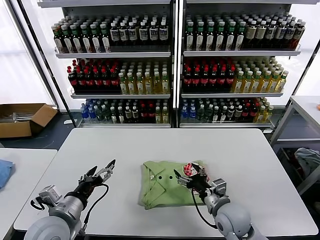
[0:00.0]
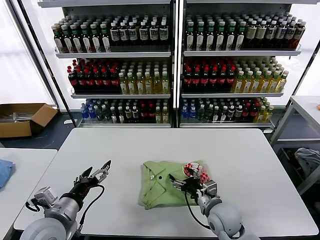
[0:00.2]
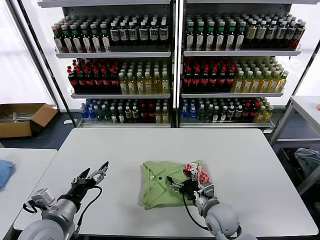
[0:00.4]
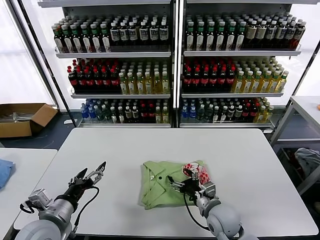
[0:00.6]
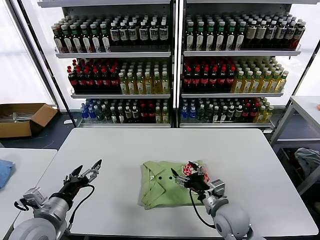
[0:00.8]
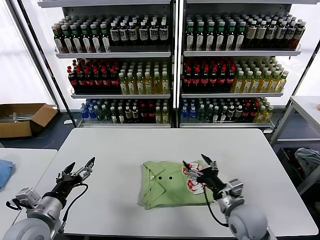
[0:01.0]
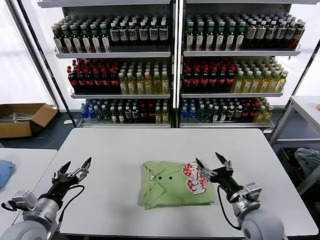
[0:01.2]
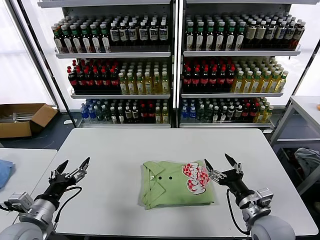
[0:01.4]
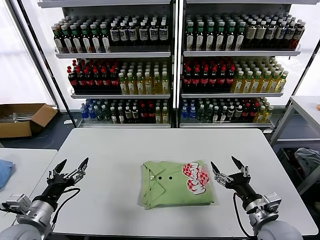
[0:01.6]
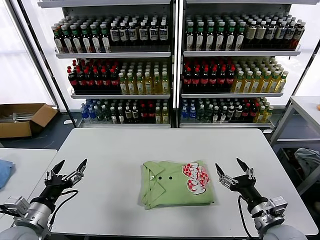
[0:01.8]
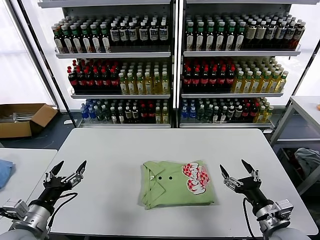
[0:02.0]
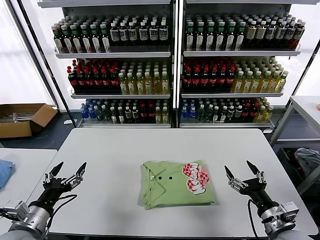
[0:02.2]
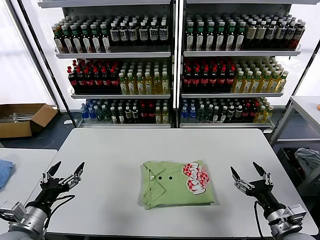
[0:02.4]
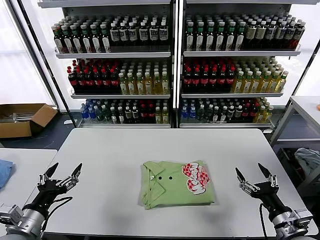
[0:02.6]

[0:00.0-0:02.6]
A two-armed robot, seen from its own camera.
Task of the whole recording: fold and organize the clothes.
0:00.0 to 0:01.2: The right gripper changes place by roughly 5 cm; the left gripper moves to the left, approximately 5 cm.
0:01.2 to 0:02.6: The right gripper heads to the right and backward, covering about 10 cm.

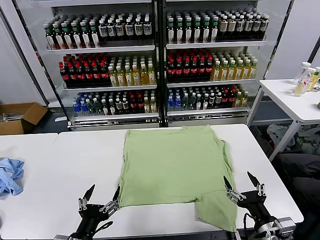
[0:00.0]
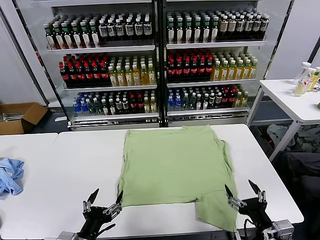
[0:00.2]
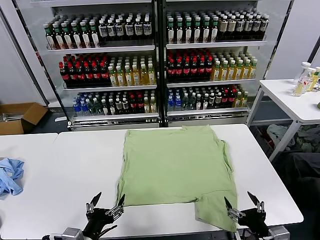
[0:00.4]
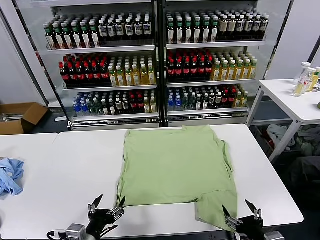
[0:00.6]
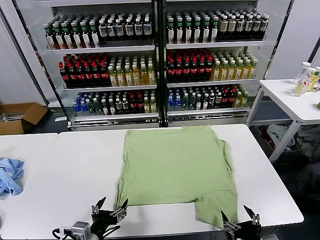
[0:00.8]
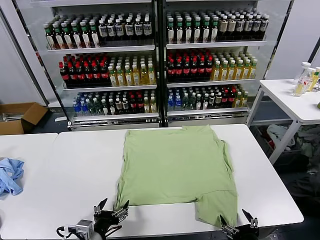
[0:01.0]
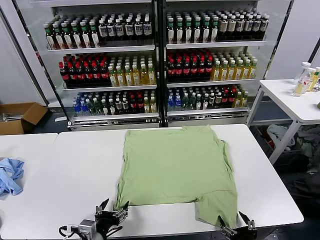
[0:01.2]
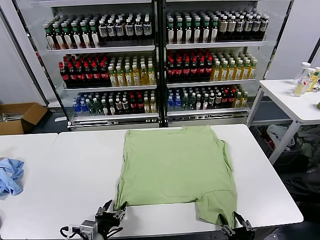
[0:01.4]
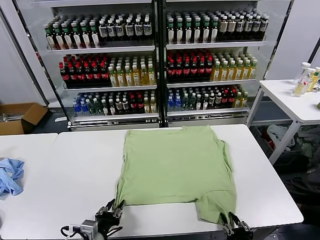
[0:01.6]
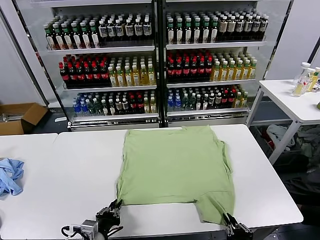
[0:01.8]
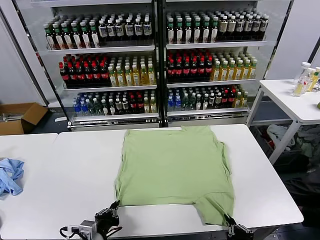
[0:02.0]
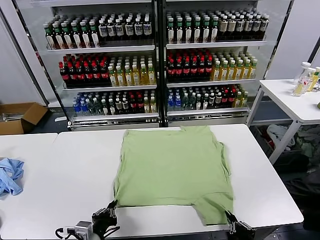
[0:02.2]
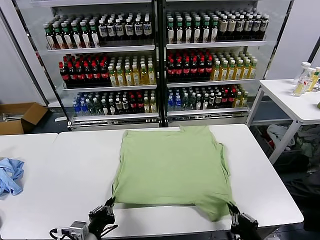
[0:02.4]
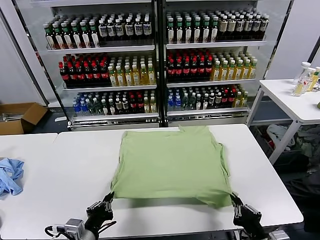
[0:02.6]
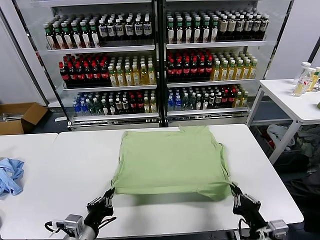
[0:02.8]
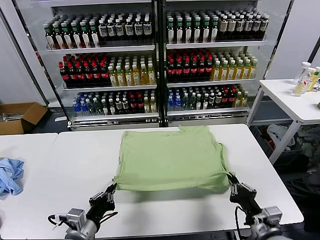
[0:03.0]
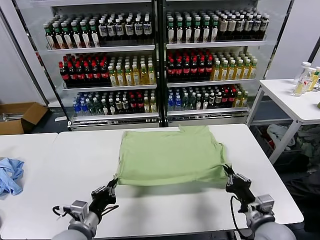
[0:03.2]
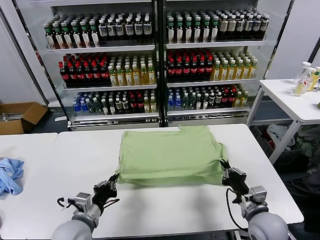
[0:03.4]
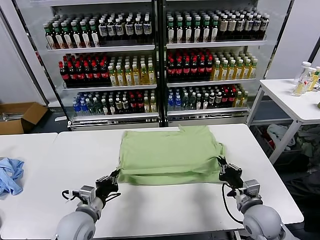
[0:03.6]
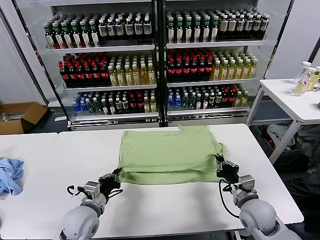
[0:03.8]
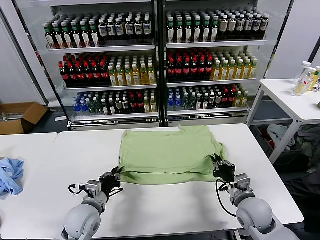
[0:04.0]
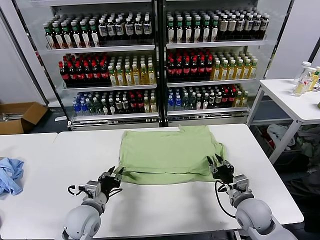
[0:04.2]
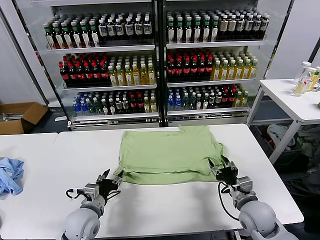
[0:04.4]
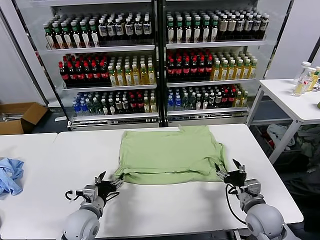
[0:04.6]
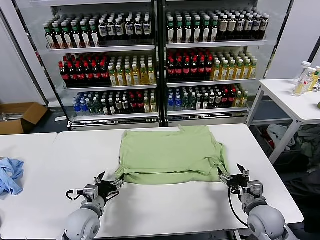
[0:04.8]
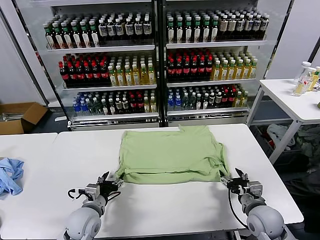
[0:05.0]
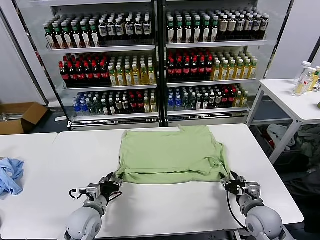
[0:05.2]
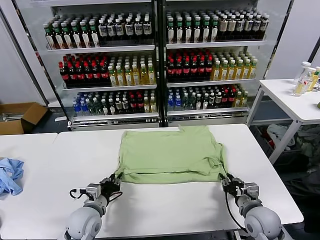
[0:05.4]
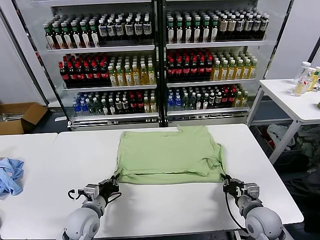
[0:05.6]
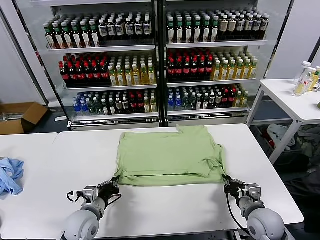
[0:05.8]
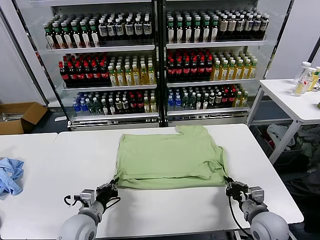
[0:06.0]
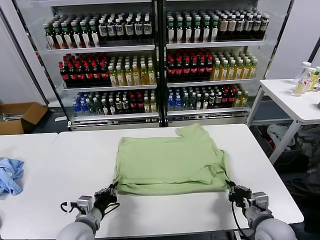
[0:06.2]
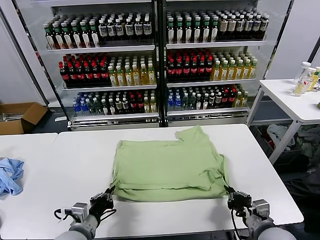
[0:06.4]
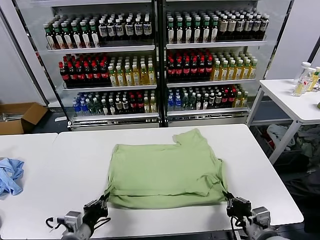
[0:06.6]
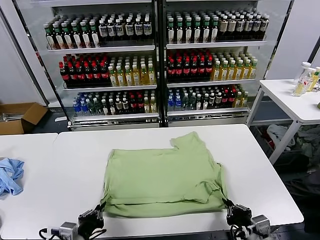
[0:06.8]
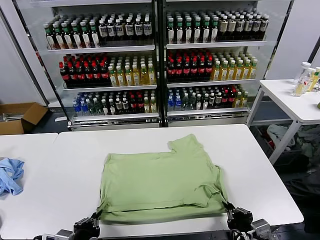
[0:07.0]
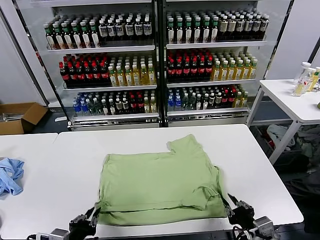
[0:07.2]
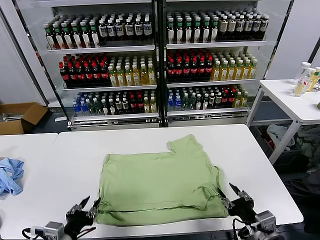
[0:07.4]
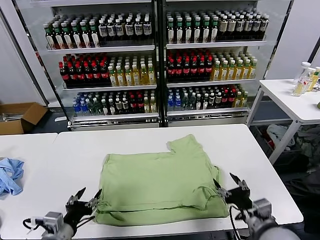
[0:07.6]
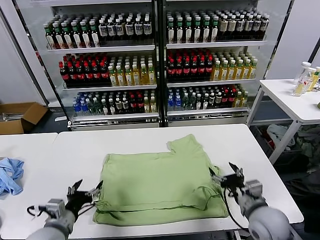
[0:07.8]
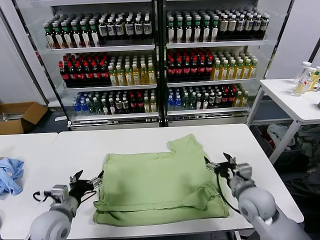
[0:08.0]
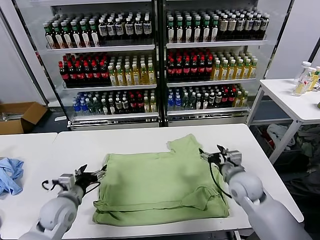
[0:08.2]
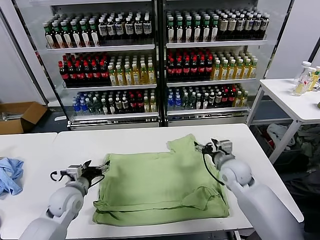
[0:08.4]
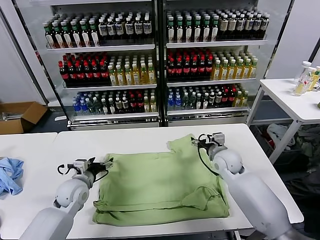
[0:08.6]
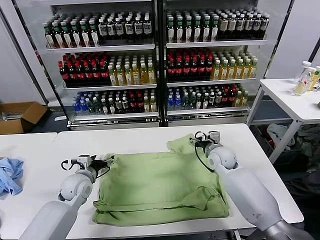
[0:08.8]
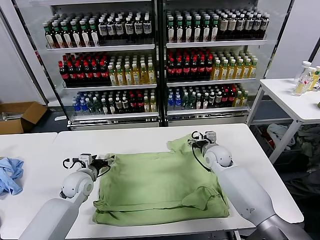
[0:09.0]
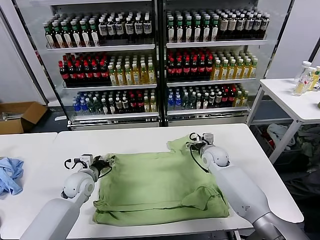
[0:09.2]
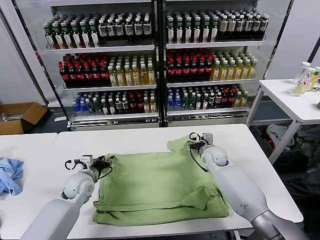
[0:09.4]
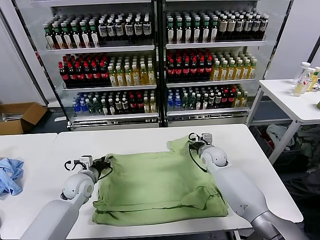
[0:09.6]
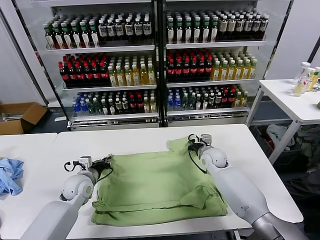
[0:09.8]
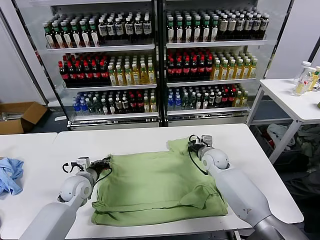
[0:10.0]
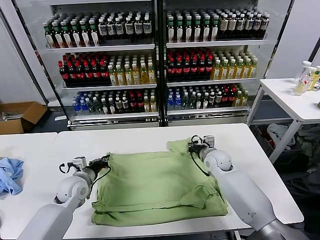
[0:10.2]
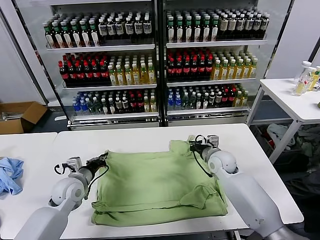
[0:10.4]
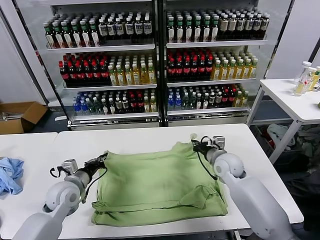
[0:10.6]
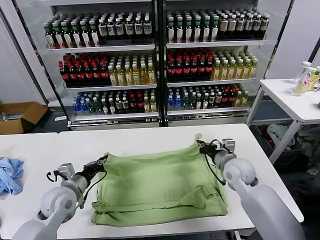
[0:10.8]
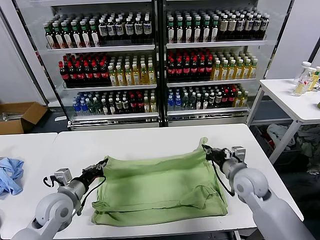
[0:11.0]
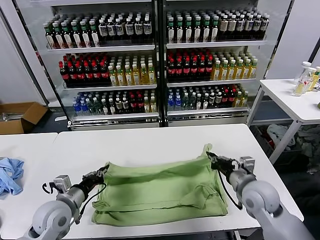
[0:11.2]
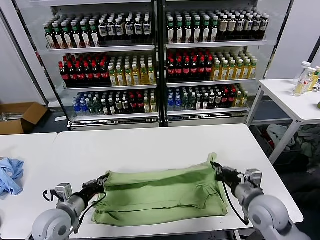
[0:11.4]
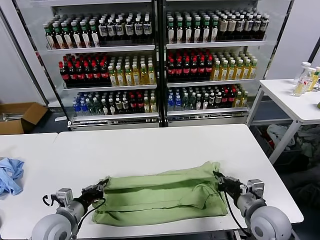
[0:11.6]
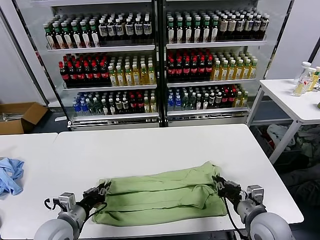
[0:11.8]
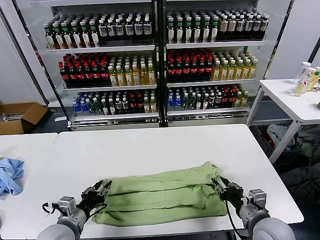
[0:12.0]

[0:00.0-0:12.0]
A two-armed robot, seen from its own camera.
Task of the whole recording: fold and organize the clothes.
Step, 0:00.0 to 0:02.2: use both grippers simultaneously to clamp the lower edge of the clothing fabric.
Step, 0:02.4 to 0:04.2: use both grippers to drag the lower edge of the fabric forward and fold it over the upper edge.
Step, 0:04.6 to 0:07.2: Drag the clothes downward with both gripper.
Step, 0:07.4 to 0:09.8: use both grippers simultaneously to clamp the upper edge of the clothing fabric.
Step, 0:10.2 to 0:11.8: use both grippers to drag the upper edge of the fabric backward and fold it over the lower edge.
0:01.6 to 0:03.0: The left gripper ends up approximately 5 cm from where it was, and closes. Meanwhile the right gripper shifts about 10 cm forward and upward.
0:03.0 to 0:04.4: The right gripper heads forward, covering approximately 10 cm, and opens; the left gripper shifts roughly 10 cm forward and downward, and opens up.
0:04.4 to 0:06.0: The right gripper closes its fingers, while the left gripper closes up.
0:06.0 to 0:07.6: The left gripper is displaced backward and upward by approximately 10 cm, and opens. The right gripper moves upward, some 5 cm, travels backward and back again, some 10 cm each way, and opens.
0:07.6 to 0:09.0: Both grippers move forward, some 25 cm.
0:09.0 to 0:10.4: The right gripper closes its fingers, while the left gripper closes up.
0:10.4 to 0:12.0: The right gripper shifts about 25 cm backward, and opens up. The left gripper moves backward, some 15 cm, and opens its fingers.

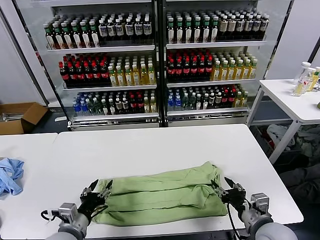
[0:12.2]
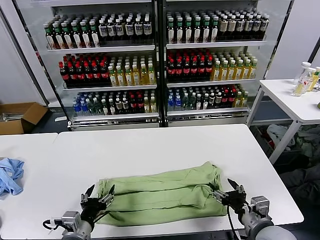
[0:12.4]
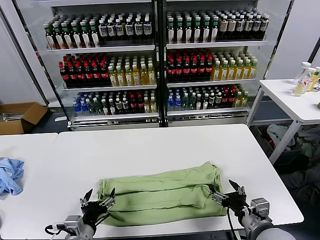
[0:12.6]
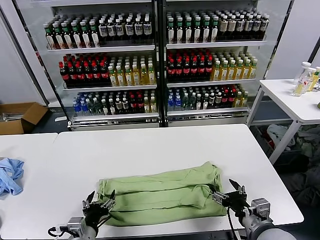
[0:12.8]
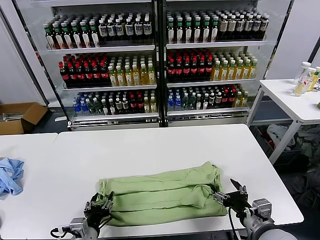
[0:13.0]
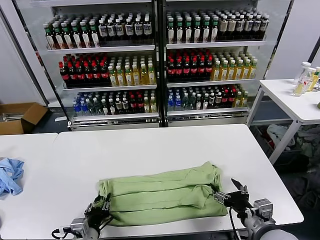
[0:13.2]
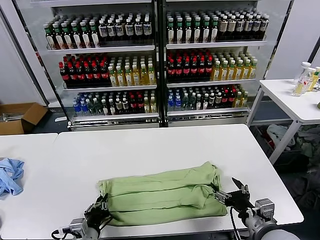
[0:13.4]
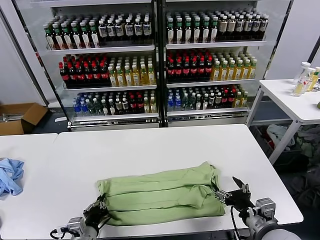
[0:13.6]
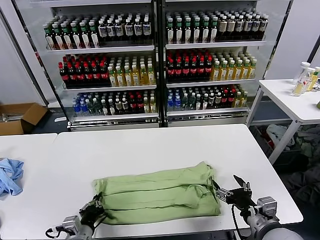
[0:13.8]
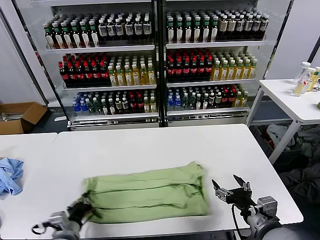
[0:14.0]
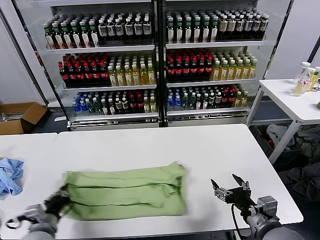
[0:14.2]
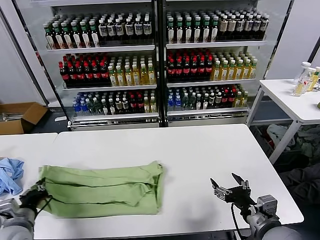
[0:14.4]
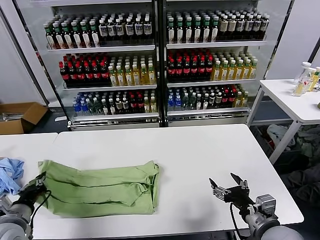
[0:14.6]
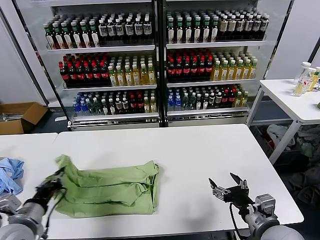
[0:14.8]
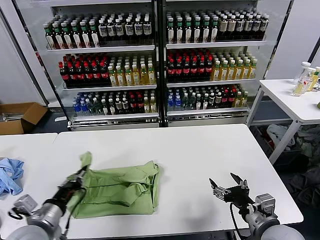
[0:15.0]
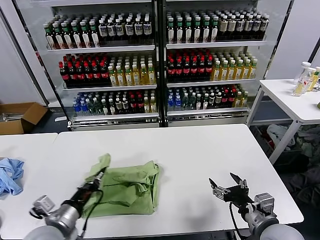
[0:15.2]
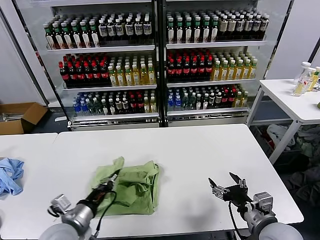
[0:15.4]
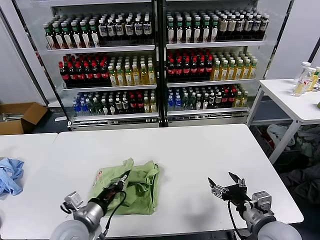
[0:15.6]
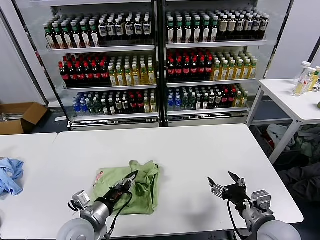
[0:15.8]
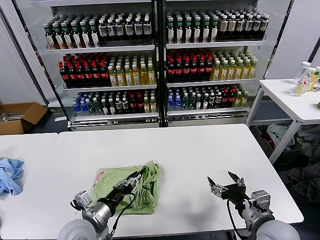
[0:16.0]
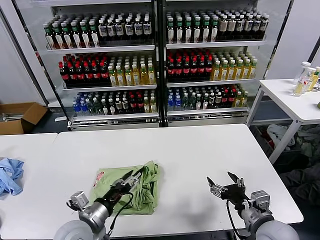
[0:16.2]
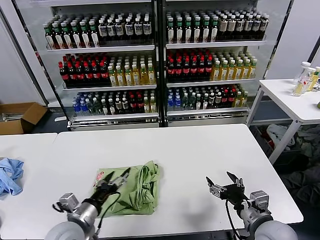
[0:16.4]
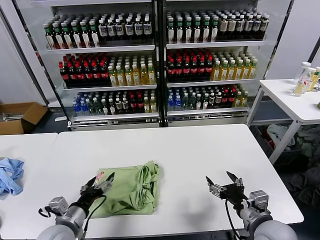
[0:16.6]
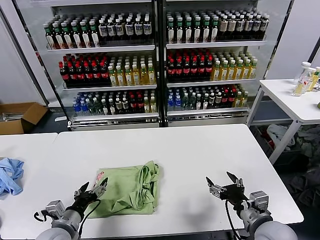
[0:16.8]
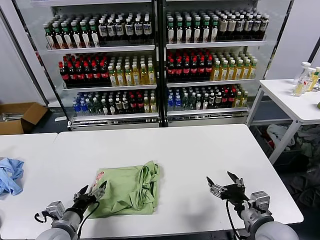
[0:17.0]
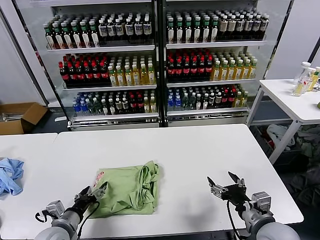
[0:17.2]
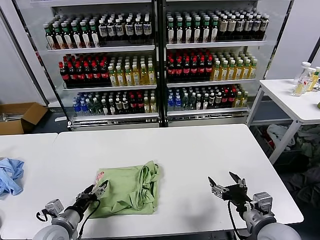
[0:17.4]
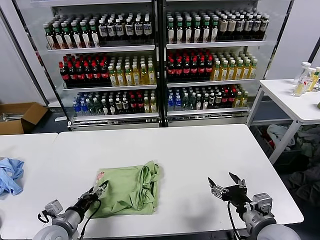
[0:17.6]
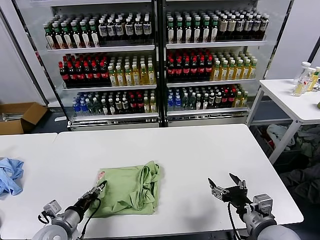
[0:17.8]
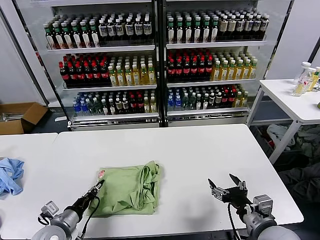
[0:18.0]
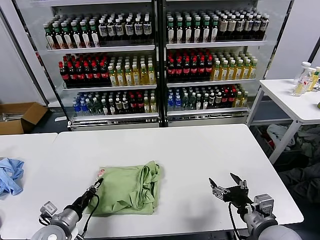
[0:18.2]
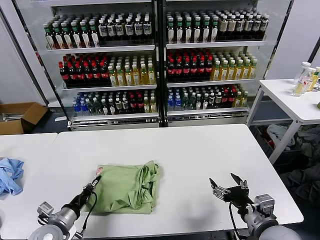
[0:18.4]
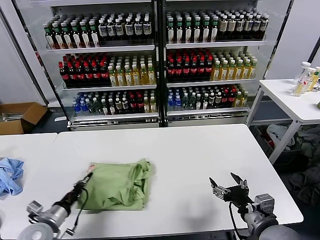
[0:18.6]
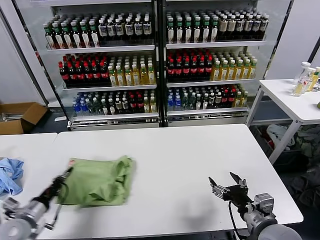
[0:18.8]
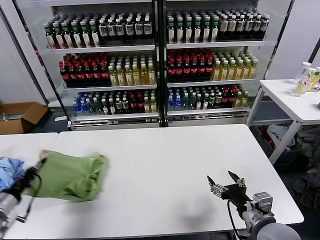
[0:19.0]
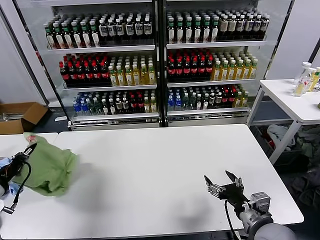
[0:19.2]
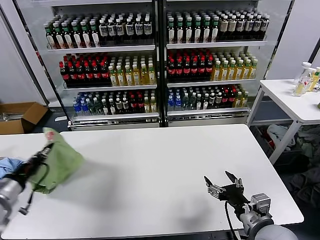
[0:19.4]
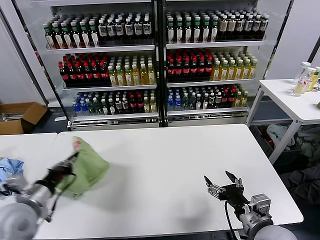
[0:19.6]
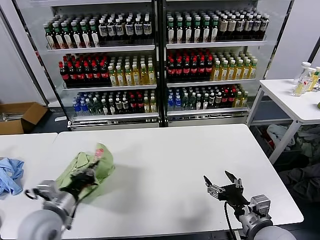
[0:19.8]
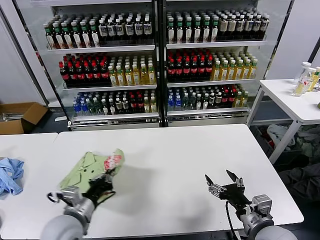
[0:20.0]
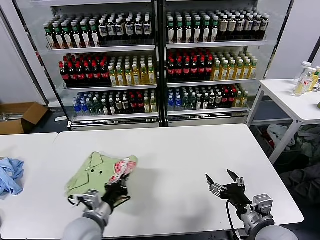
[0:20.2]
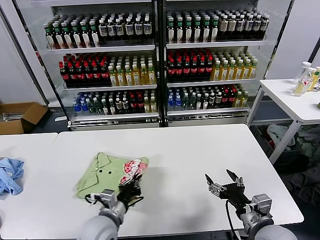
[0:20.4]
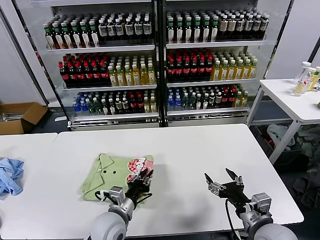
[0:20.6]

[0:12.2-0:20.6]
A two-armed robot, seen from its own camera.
Task of the whole recording: fold and organize the clothes.
Step, 0:12.2 to 0:13.4: use the left gripper to clamp the left edge of the fabric.
Step, 0:13.6 to 0:16.0: use the left gripper to drag the left edge of the fabric to the left and folds it over the right edge.
0:12.2 to 0:13.6: The left gripper moves downward, roughly 5 cm, and closes.
0:13.6 to 0:15.0: The left gripper is displaced upward and to the left by some 15 cm.
0:15.0 to 0:16.4: The left gripper shifts approximately 10 cm to the right, and opens its fingers.
0:16.4 to 0:17.8: The left gripper is displaced to the left and downward by roughly 10 cm, and closes.
0:17.8 to 0:19.2: The left gripper travels to the left and upward by some 20 cm, and closes its fingers.
0:19.2 to 0:20.6: The left gripper travels to the right by some 35 cm.
